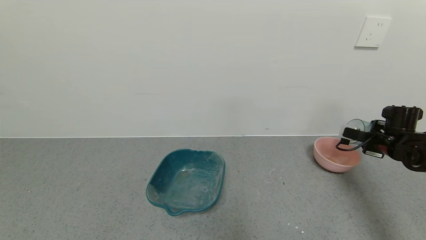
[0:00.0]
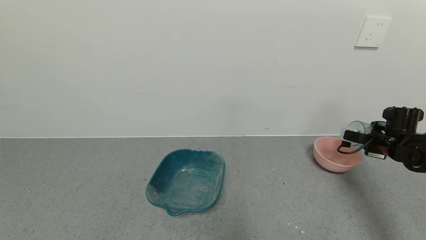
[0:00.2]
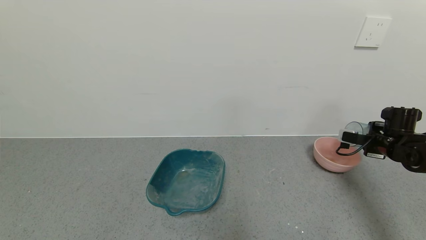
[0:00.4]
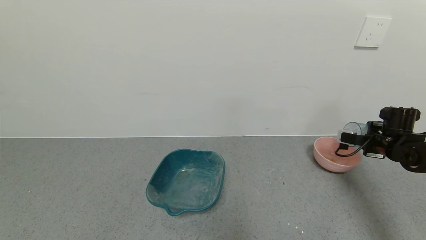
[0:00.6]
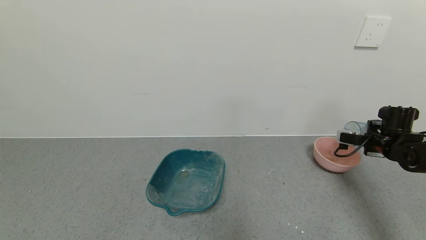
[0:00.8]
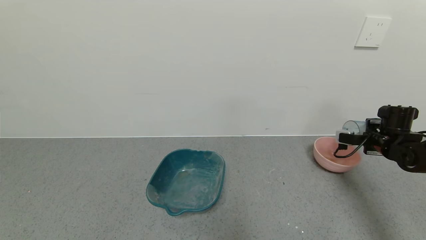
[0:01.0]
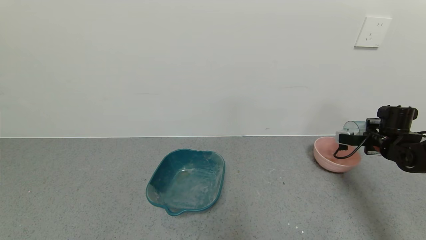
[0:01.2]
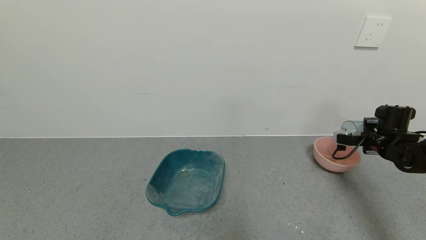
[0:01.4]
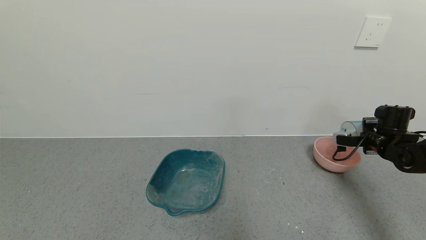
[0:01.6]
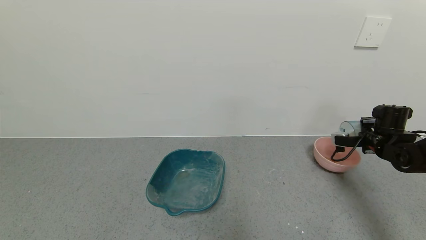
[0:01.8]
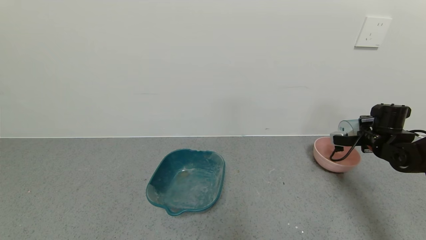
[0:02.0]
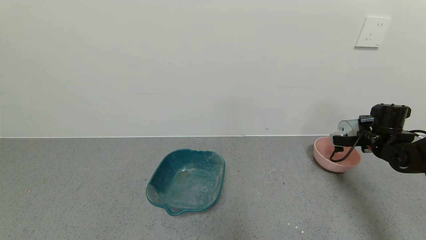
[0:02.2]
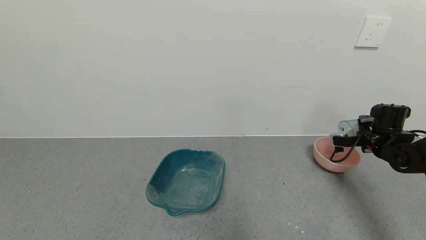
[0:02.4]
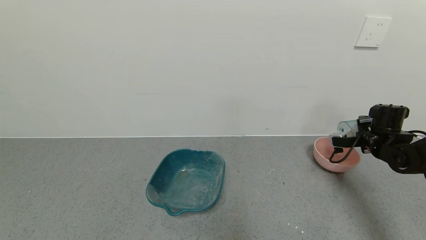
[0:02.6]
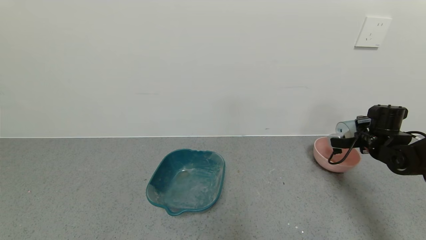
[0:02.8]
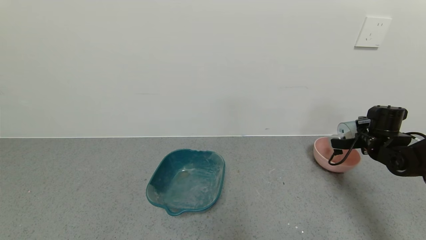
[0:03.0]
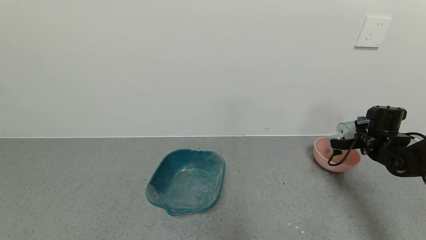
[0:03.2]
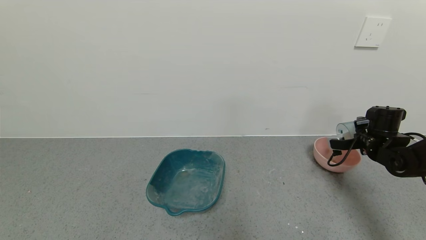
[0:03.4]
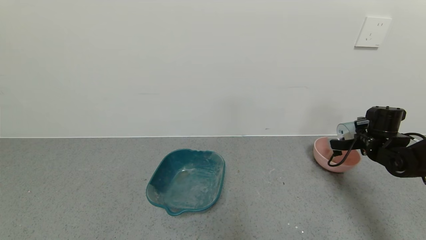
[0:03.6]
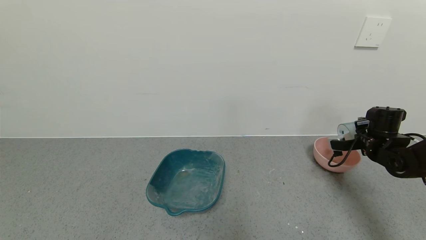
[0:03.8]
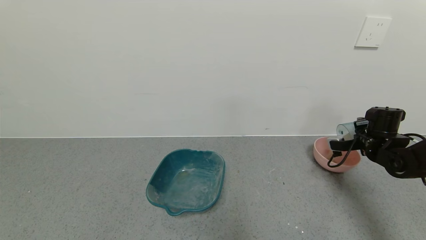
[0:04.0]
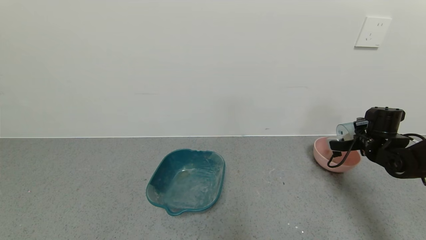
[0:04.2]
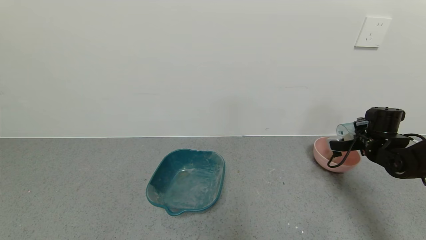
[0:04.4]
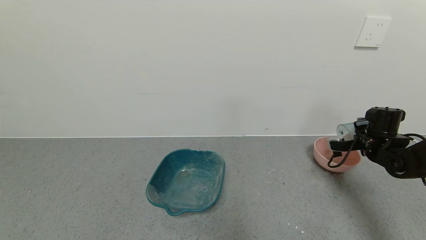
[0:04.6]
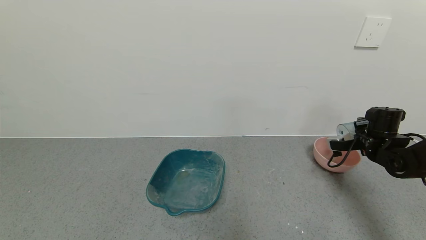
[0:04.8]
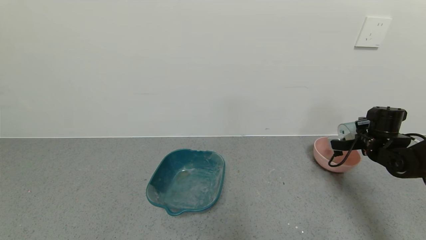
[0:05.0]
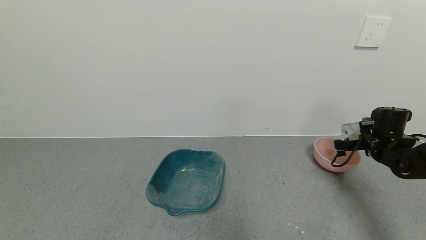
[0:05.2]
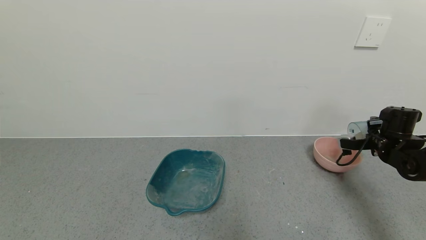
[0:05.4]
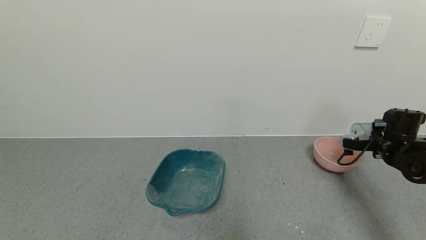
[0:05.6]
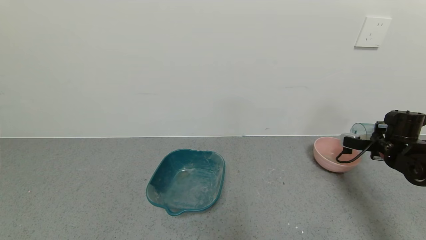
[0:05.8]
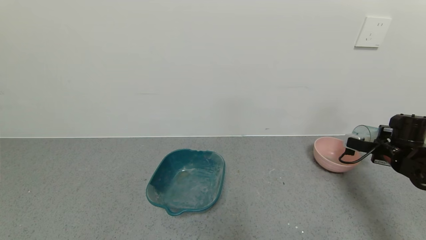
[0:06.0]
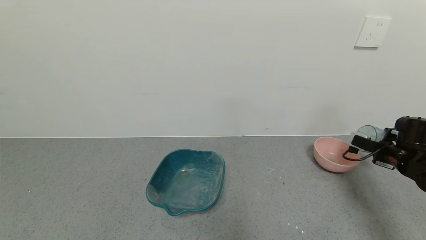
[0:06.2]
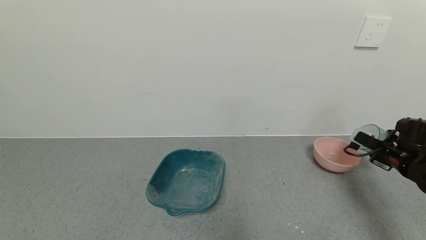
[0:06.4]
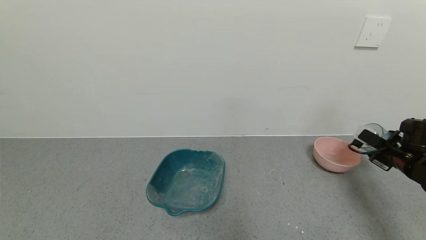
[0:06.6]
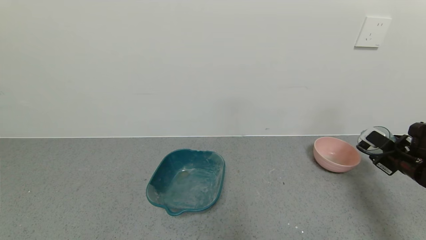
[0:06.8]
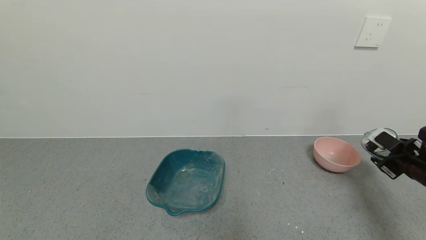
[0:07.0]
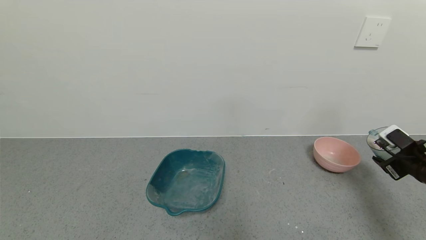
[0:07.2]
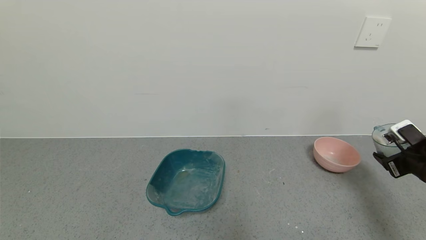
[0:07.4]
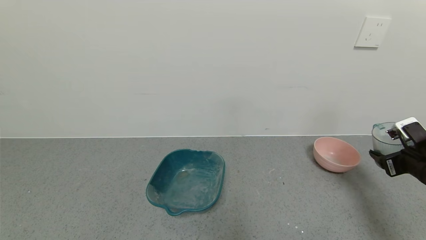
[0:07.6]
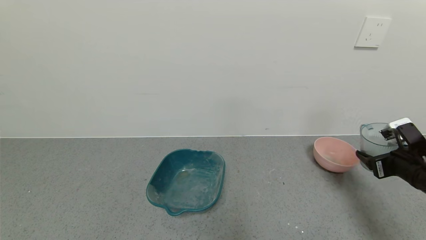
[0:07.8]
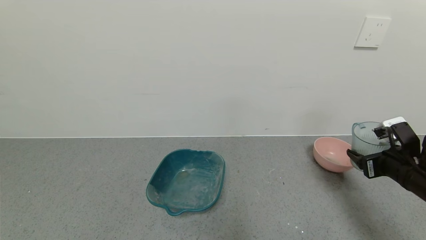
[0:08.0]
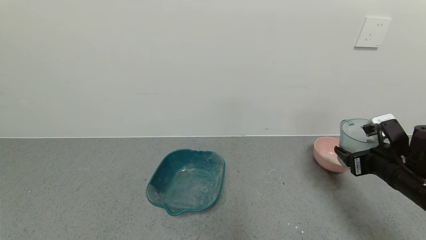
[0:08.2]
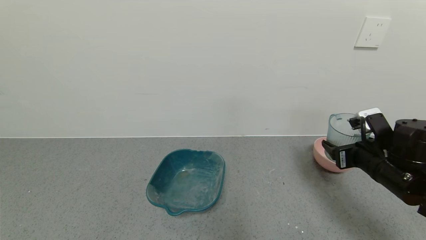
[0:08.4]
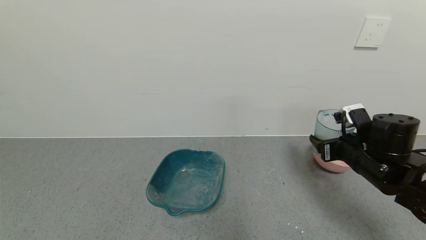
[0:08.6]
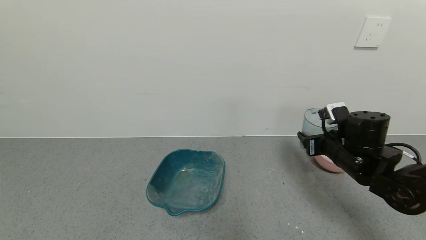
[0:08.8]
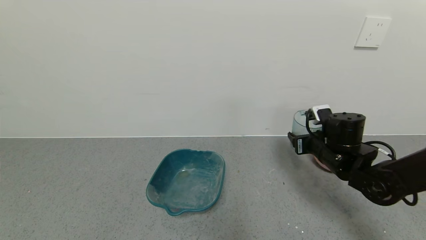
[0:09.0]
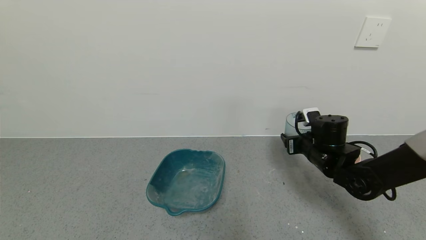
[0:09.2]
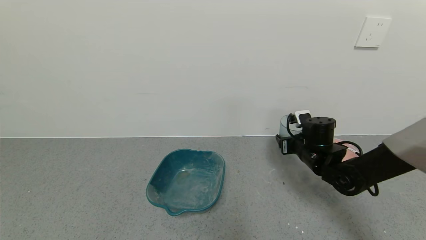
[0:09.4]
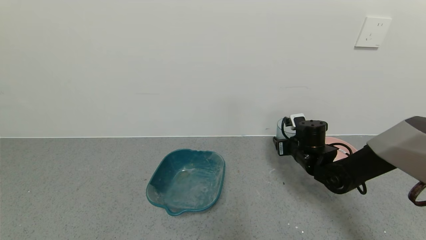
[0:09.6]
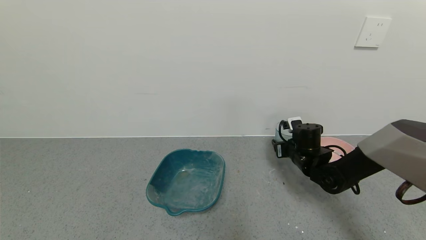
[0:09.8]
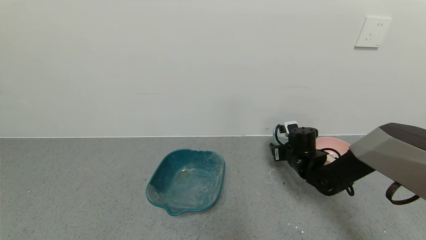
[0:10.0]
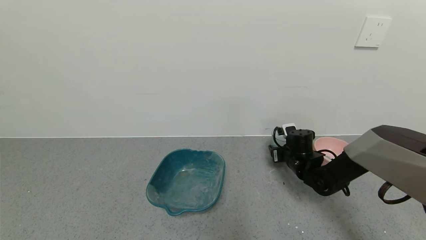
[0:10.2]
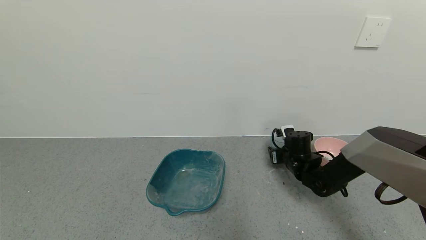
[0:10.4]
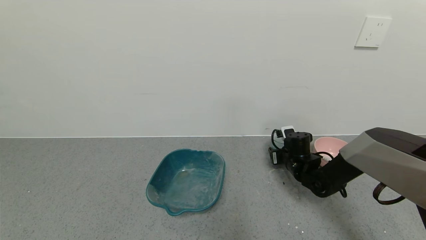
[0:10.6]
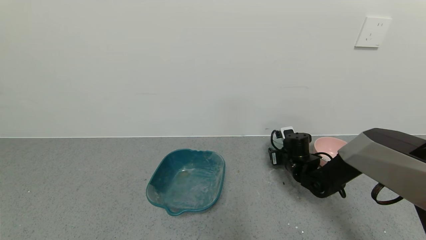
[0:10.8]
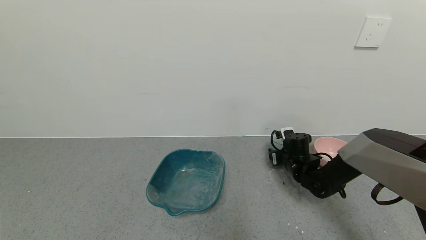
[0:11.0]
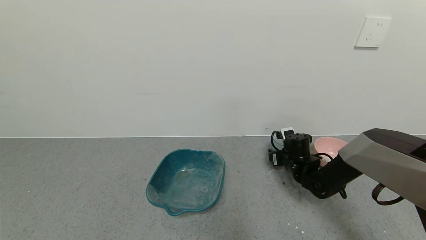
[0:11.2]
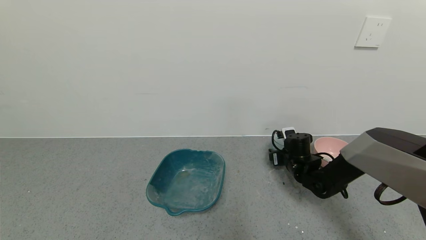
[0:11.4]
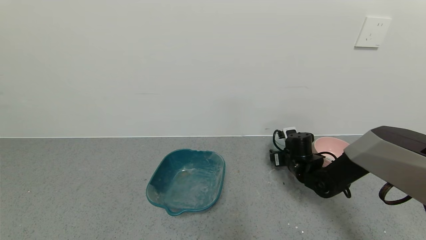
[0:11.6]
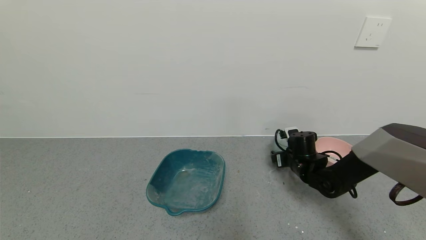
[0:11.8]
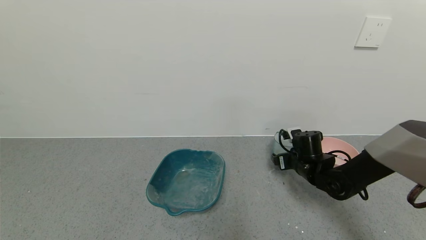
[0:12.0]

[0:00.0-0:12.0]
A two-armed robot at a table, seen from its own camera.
Task of the whole recording: use a gripper to pick up the cup and pour the powder into a bowl or tray.
Step, 0:00.0 to 0:06.4: Pour the powder into the pink bowl with the right gripper.
0:00.0 to 0:01.6: The grippers move only a little.
0:01.6 to 0:03.0: The grippers move only a little.
0:03.0 to 0:04.4: The two grippers keep their place.
0:06.0 to 0:07.6: The right gripper goes some 10 cm backward.
0:07.6 to 0:09.0: The right gripper shifts approximately 20 cm to the left and forward.
0:09.0 to 0:10.4: The right gripper travels downward and forward by about 10 cm.
0:10.4 to 0:12.0: The right gripper opens up.

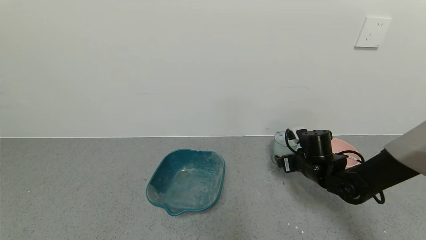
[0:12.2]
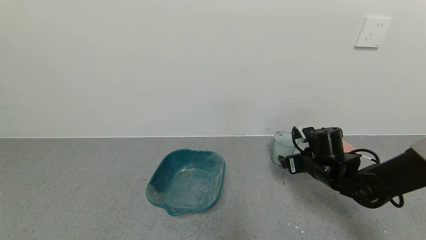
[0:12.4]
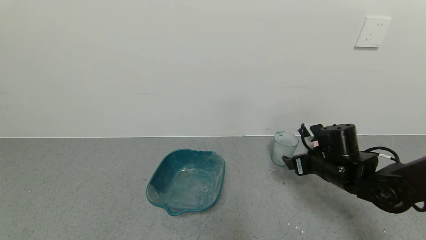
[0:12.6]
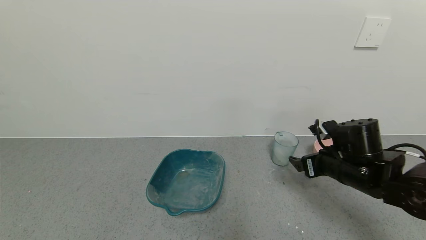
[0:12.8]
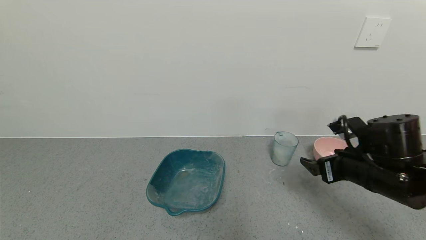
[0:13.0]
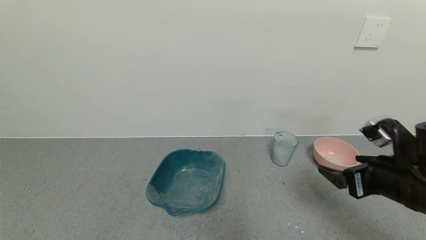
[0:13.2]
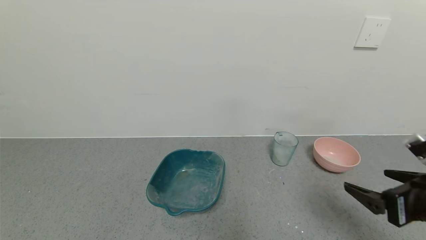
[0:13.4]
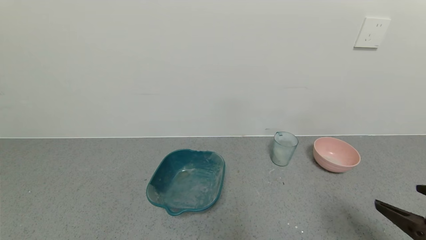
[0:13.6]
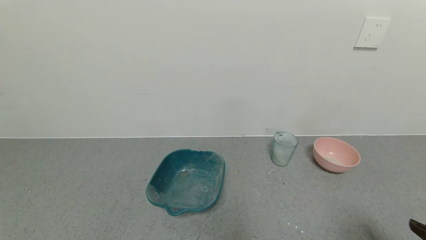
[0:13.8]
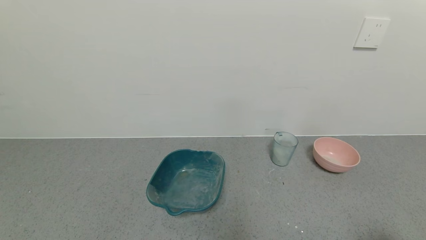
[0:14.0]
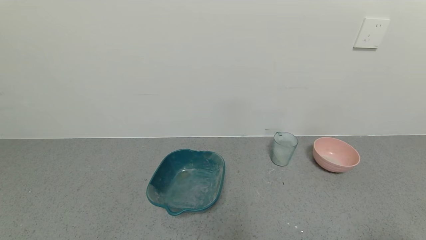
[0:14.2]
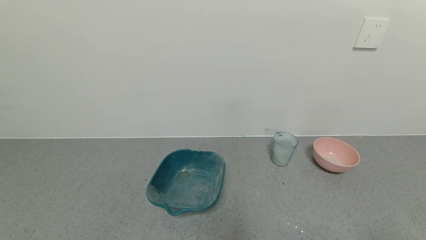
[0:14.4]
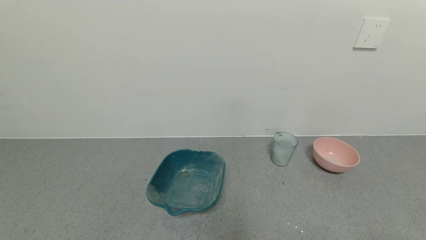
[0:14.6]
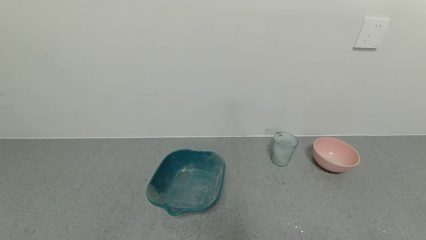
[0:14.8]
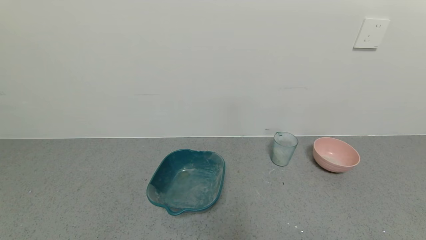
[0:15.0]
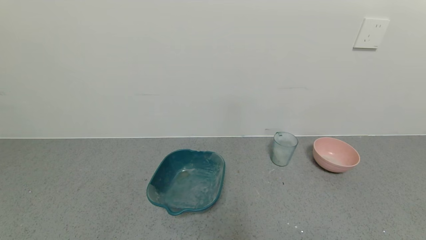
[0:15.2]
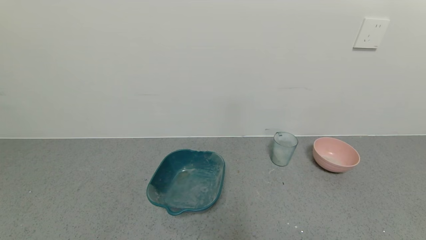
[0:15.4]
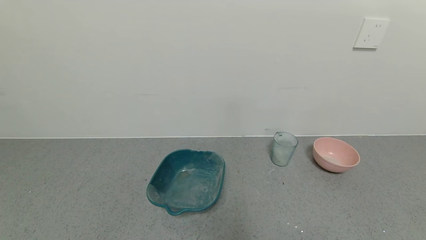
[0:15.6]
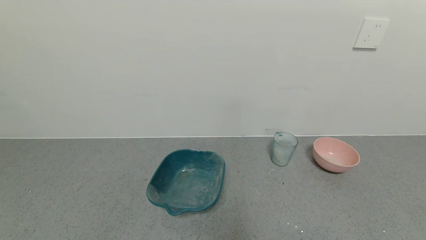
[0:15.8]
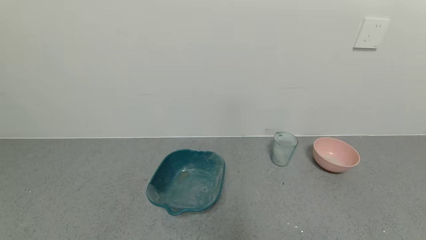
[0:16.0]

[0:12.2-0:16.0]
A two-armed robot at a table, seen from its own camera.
Task of the whole recording: use a gripper to pick up the cup and pour the powder into a bowl or tray.
0:12.2 to 0:13.4: The right gripper travels backward and upward by about 25 cm.
0:13.4 to 0:14.8: The right gripper shifts some 20 cm backward.
